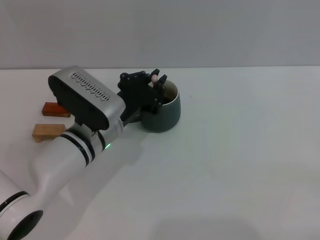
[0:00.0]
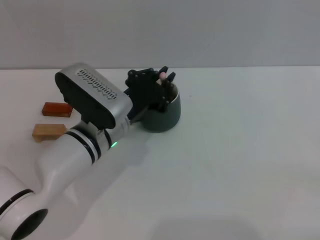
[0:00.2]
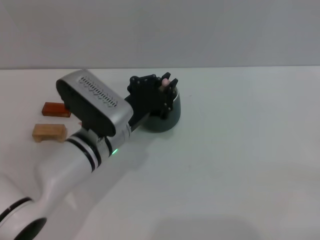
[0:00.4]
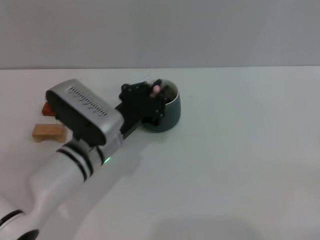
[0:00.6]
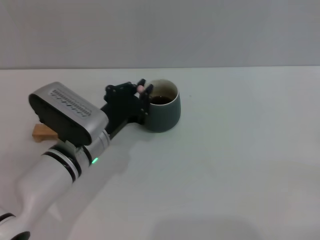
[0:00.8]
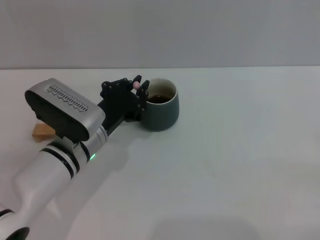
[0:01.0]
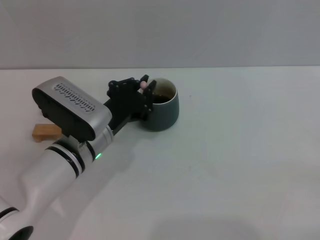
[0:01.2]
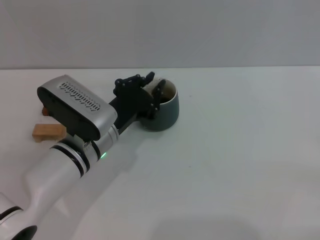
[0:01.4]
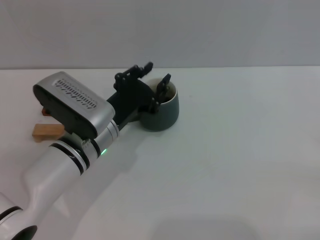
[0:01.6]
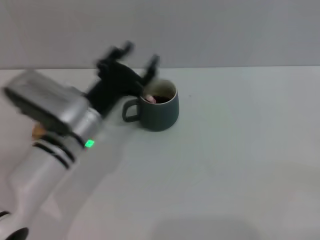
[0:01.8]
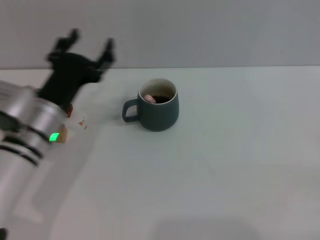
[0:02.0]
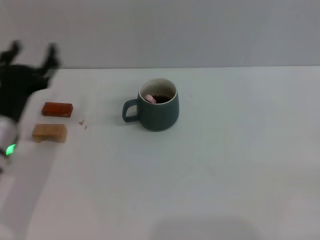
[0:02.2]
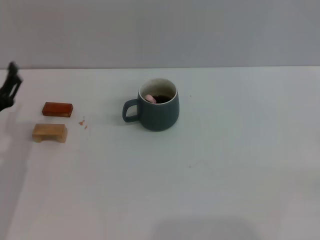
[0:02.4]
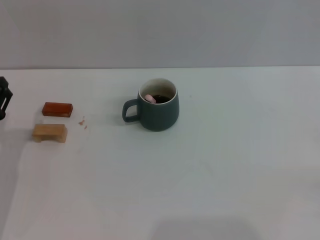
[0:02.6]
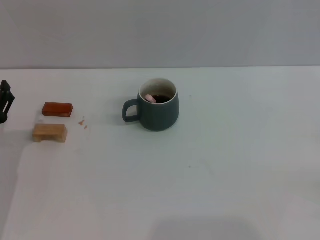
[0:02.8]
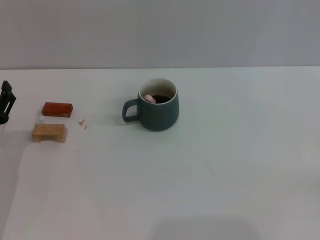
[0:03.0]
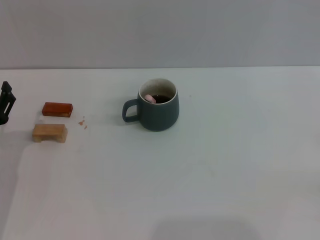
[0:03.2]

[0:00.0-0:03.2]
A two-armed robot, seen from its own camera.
Task of the whole recording: Move the grey cup to the center, lift the pink spoon, stir it three times in the cup, and put the spoon into the cup.
0:00.0 to 0:01.6: There are only small adjustments of the grippers.
0:01.6 to 0:03.2: The left gripper heads to the left, covering approximately 15 cm, and opens its fingers.
